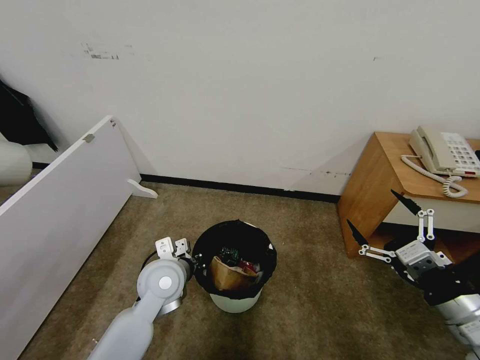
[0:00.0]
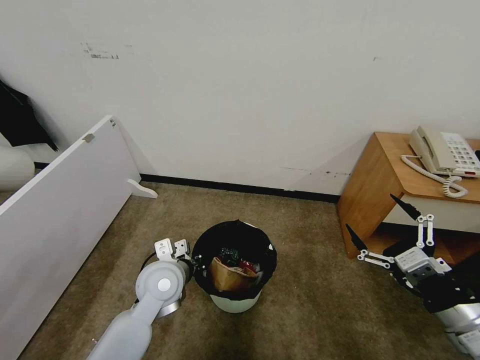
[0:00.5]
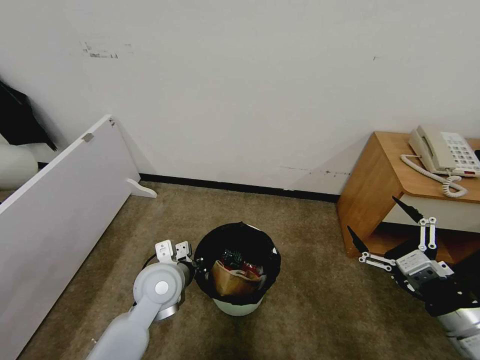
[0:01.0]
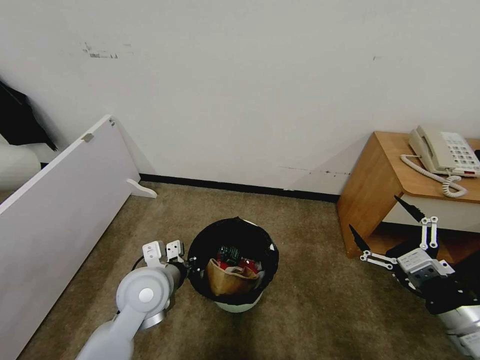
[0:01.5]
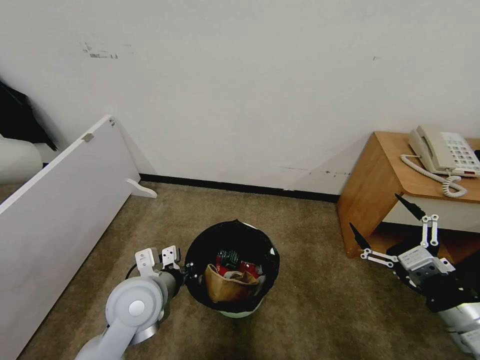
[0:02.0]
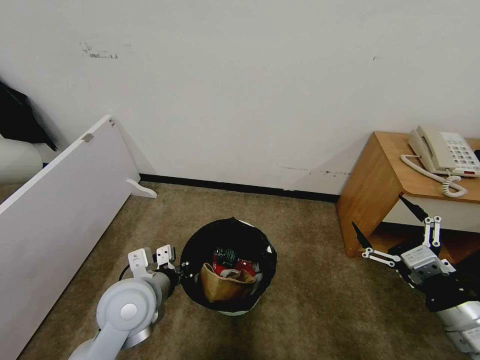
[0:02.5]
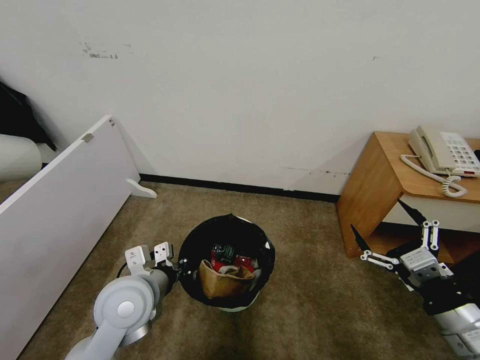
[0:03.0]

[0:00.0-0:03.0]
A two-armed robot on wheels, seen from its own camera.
Task of the whole recording: Pick up the trash bin and place the garbage on the floor into it.
0:00.0 to 0:01.5: The grippers move only a little.
0:01.5 to 0:03.0: The grippers stay close to where they were, moving slightly.
